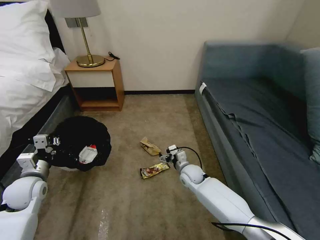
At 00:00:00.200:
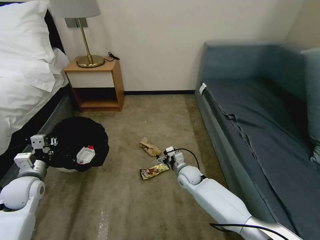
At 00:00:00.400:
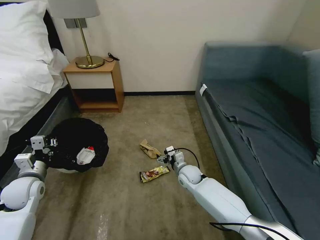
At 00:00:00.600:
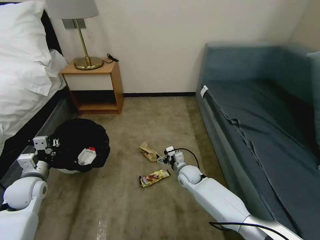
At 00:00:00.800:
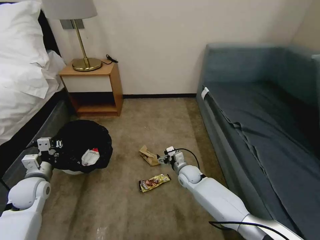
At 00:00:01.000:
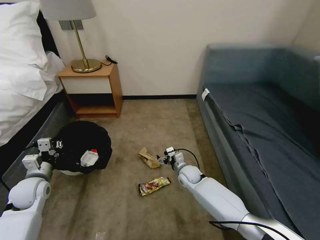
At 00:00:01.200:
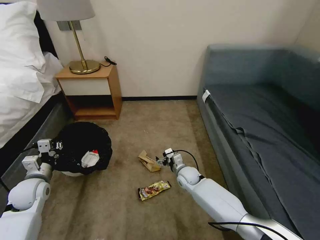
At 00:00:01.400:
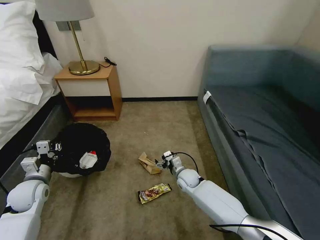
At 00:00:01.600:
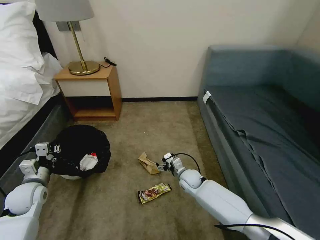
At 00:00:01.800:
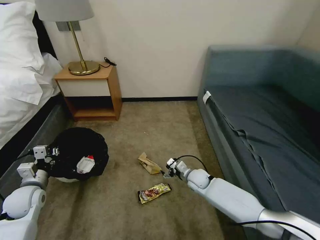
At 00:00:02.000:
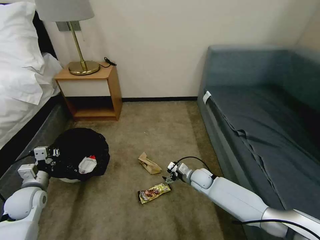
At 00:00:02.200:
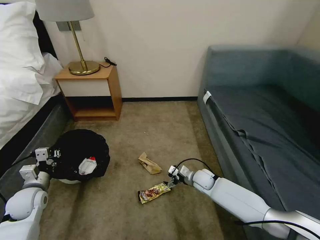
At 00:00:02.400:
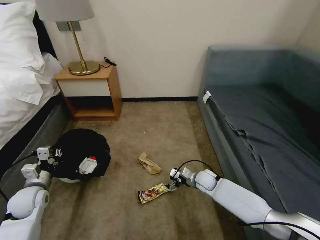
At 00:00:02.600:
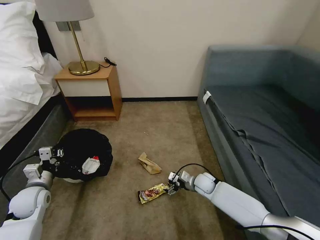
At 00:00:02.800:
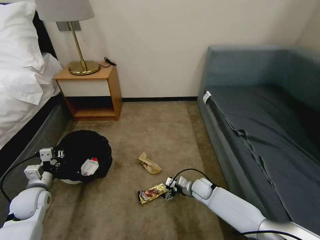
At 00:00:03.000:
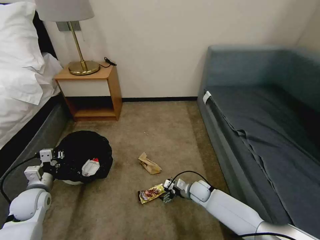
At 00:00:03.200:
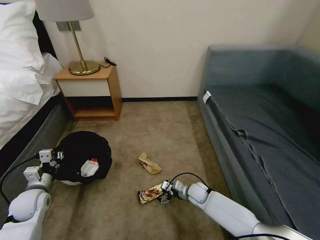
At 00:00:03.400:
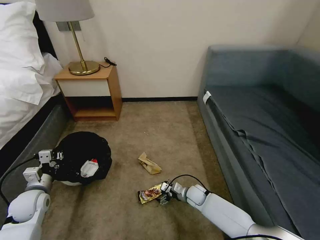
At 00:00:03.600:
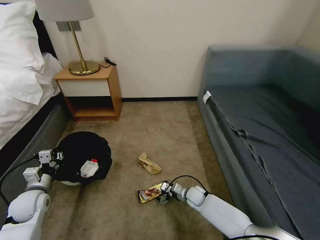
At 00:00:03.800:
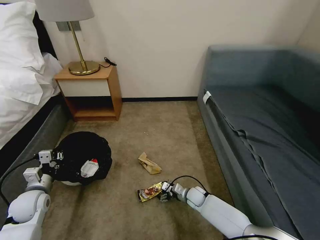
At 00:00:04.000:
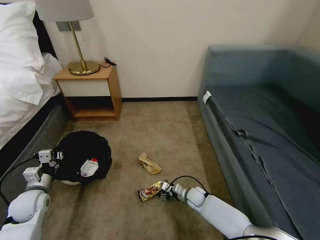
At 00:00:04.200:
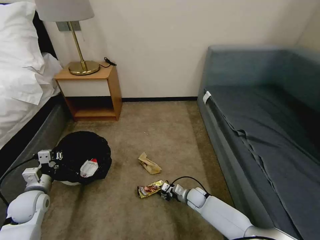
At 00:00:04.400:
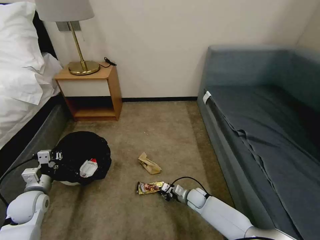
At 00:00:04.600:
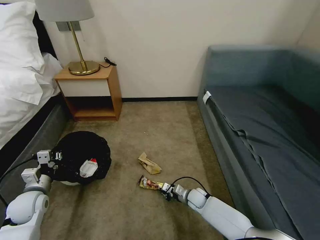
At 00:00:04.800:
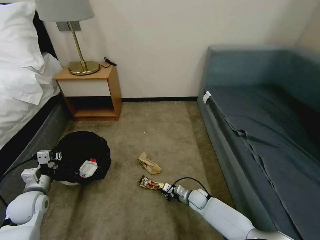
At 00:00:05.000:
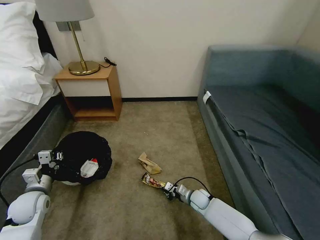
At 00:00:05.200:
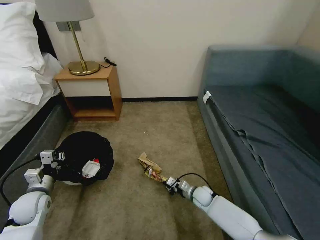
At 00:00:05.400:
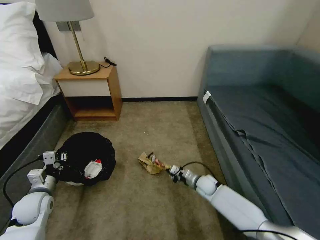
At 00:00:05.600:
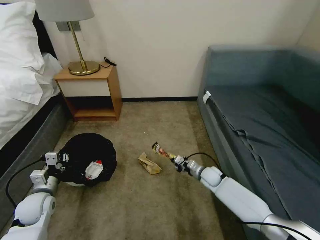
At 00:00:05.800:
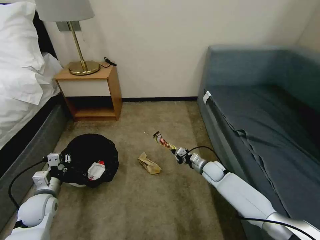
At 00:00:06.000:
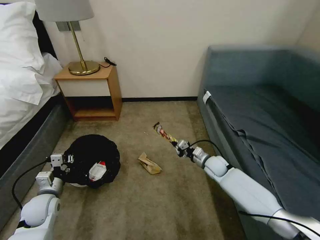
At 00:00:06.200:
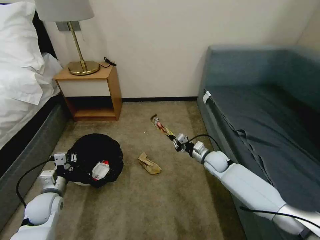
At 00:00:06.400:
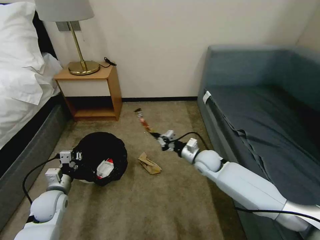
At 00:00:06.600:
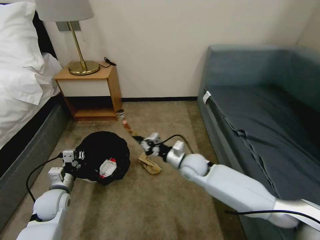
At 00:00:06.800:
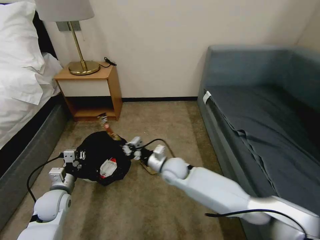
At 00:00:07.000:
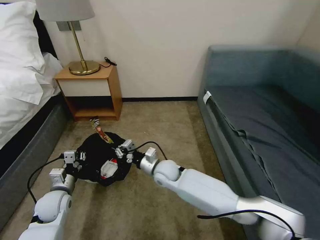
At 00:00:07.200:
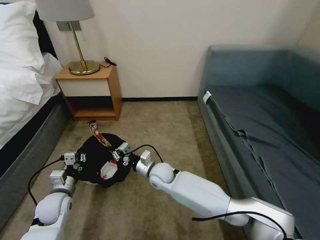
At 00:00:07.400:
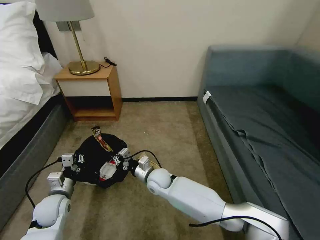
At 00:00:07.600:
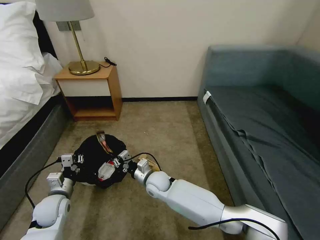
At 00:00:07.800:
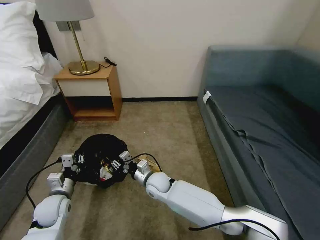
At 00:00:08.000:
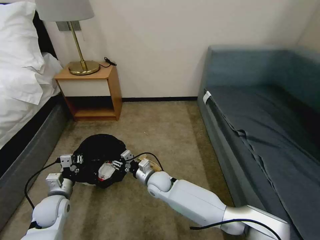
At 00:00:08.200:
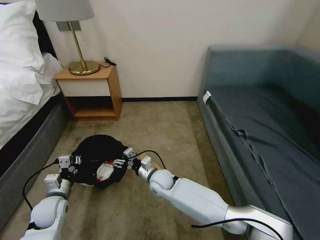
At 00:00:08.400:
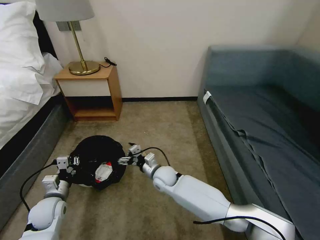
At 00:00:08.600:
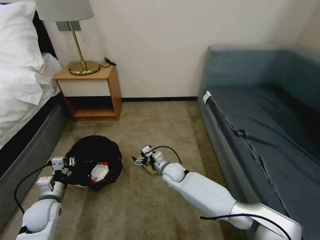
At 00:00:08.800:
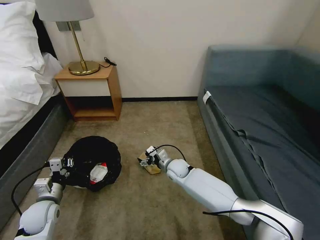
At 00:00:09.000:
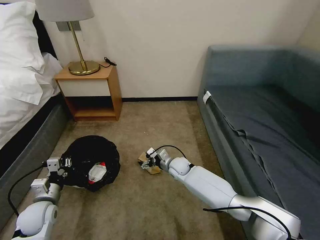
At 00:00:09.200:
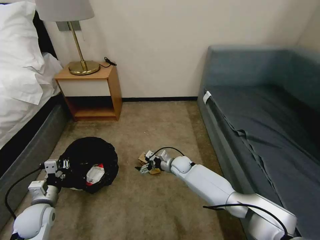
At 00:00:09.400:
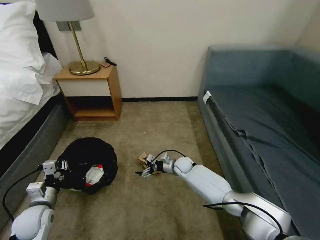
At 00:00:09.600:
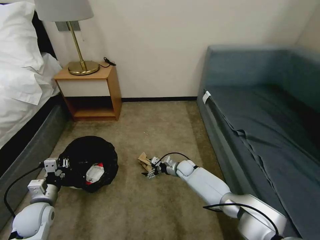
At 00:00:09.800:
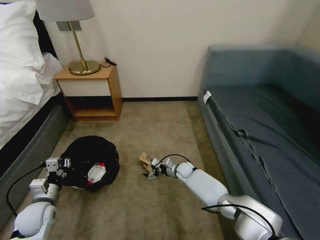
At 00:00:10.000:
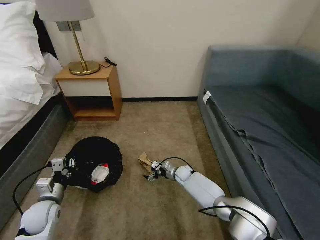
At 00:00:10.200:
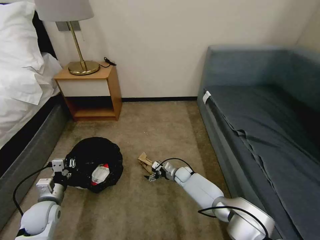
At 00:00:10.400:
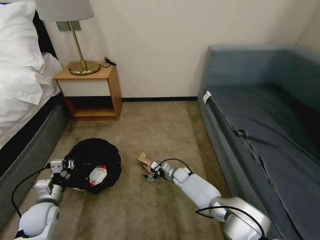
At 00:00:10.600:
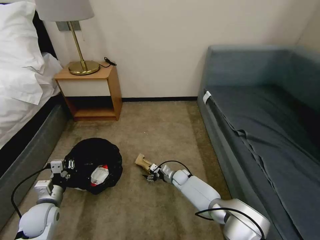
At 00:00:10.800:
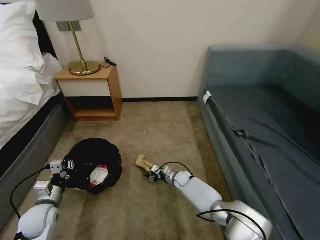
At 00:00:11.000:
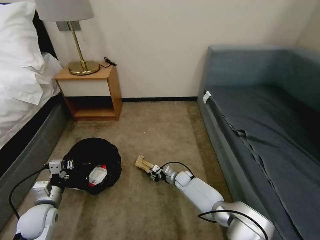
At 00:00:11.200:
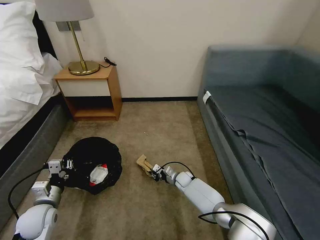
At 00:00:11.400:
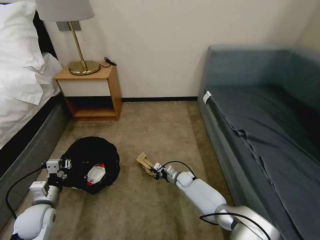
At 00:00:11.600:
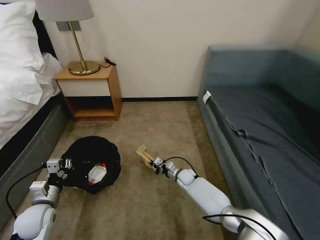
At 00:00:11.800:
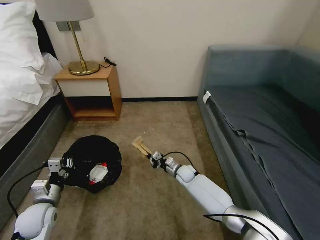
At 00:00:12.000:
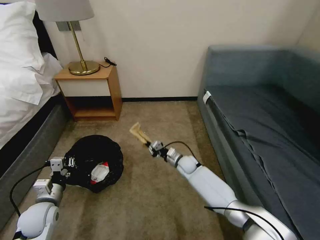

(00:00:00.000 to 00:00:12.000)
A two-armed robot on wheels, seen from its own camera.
Task of the whole recording: Pick up the trash bin, then pick up the garbage on the floor and place it into the trash bin.
00:00:01.600 - 00:00:03.000: The right gripper moves to the right, roughly 5 cm.
00:00:03.000 - 00:00:04.400: The right gripper changes place by some 5 cm, and closes its fingers.
00:00:04.400 - 00:00:06.000: The right gripper shifts some 20 cm upward, forward and to the right.
00:00:06.000 - 00:00:07.600: The right gripper shifts approximately 25 cm to the left.
00:00:07.600 - 00:00:09.000: The right gripper shifts roughly 15 cm to the right and forward, and opens its fingers.
00:00:09.000 - 00:00:10.400: The right gripper is displaced downward by approximately 10 cm.
00:00:10.400 - 00:00:12.000: The right gripper travels upward by some 10 cm, and closes up.

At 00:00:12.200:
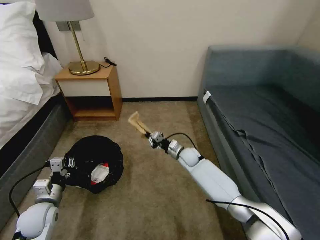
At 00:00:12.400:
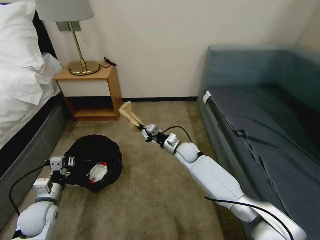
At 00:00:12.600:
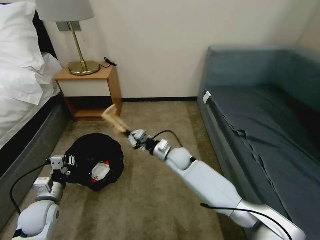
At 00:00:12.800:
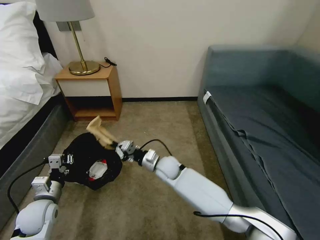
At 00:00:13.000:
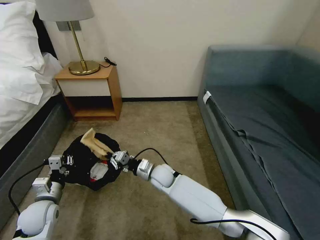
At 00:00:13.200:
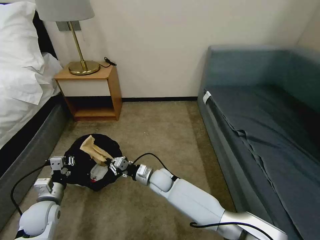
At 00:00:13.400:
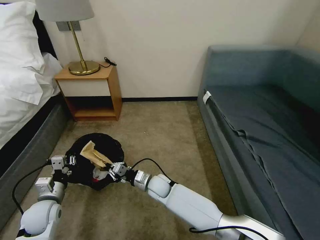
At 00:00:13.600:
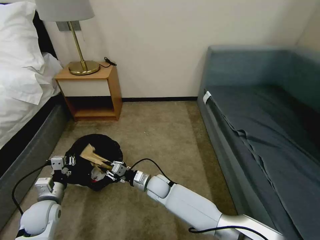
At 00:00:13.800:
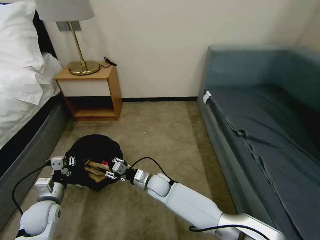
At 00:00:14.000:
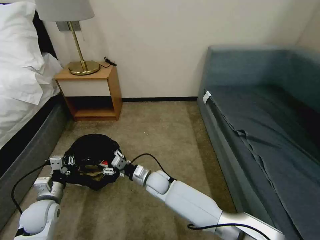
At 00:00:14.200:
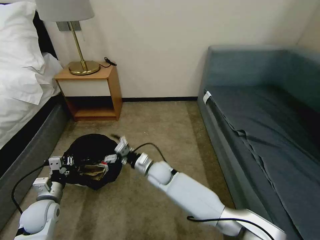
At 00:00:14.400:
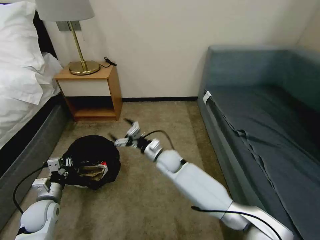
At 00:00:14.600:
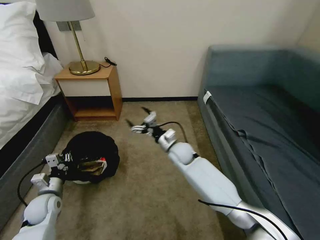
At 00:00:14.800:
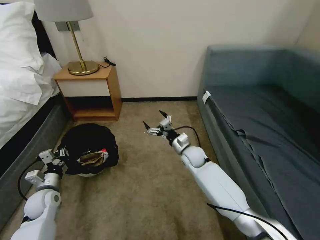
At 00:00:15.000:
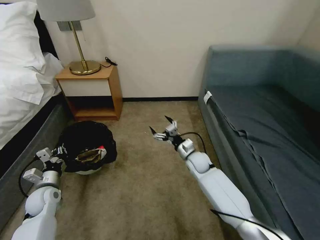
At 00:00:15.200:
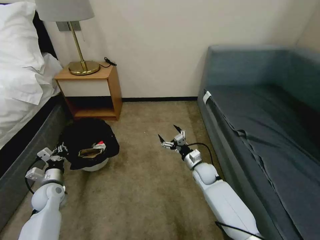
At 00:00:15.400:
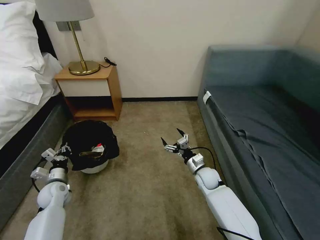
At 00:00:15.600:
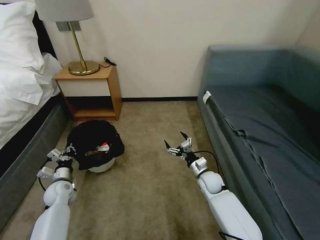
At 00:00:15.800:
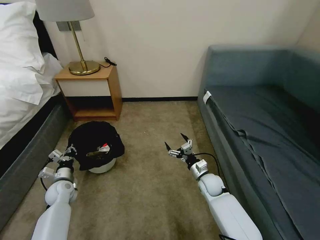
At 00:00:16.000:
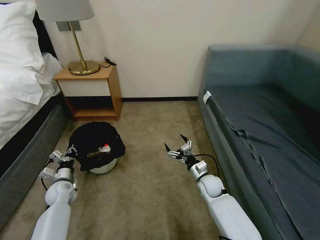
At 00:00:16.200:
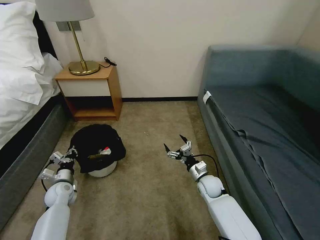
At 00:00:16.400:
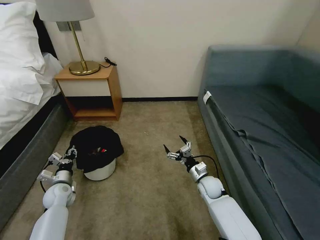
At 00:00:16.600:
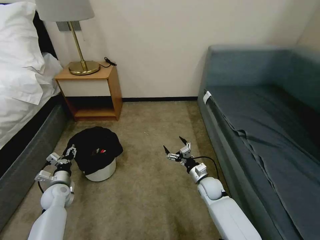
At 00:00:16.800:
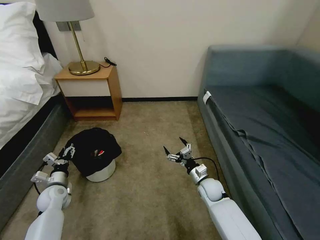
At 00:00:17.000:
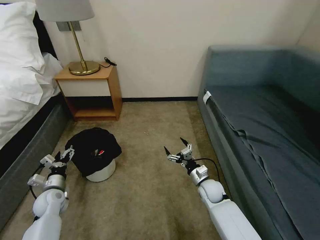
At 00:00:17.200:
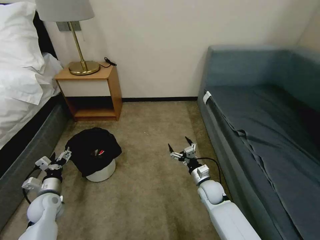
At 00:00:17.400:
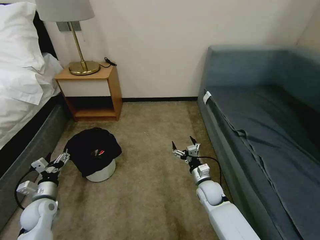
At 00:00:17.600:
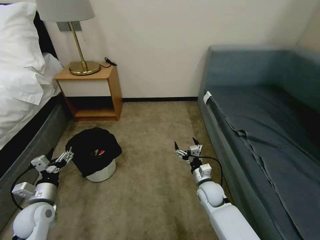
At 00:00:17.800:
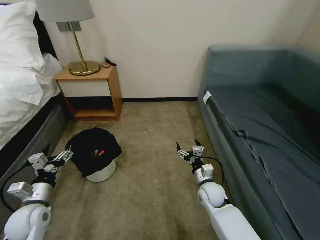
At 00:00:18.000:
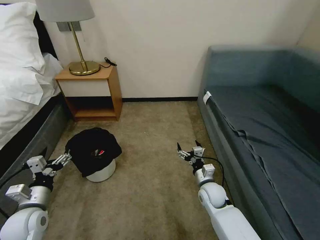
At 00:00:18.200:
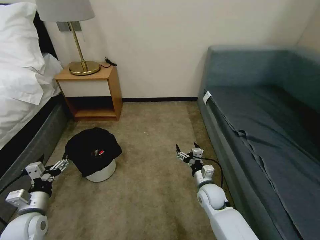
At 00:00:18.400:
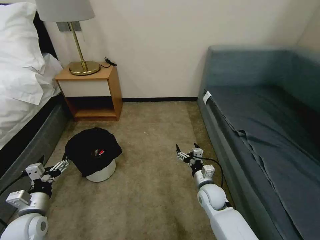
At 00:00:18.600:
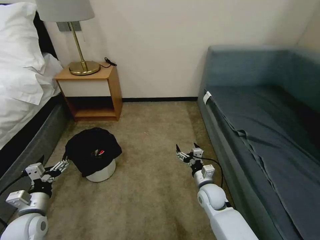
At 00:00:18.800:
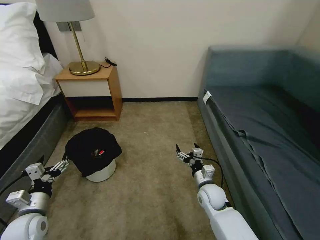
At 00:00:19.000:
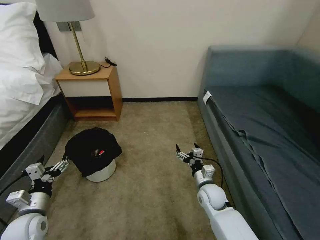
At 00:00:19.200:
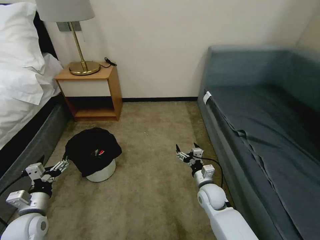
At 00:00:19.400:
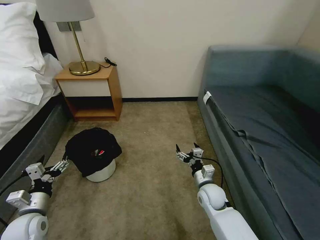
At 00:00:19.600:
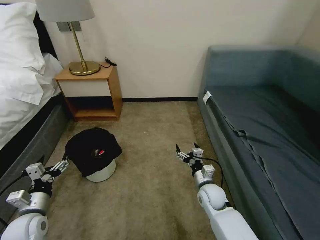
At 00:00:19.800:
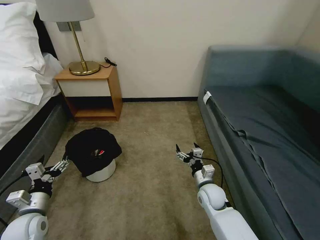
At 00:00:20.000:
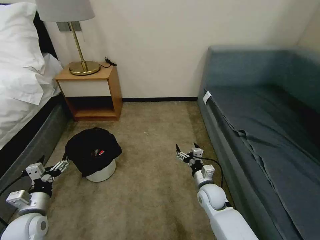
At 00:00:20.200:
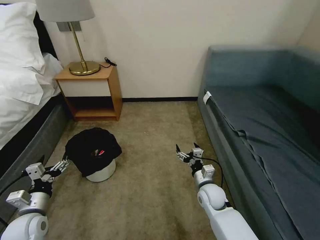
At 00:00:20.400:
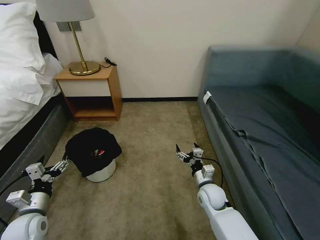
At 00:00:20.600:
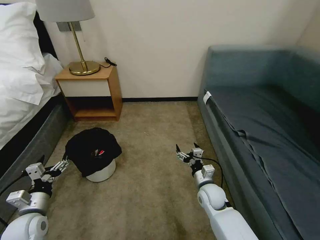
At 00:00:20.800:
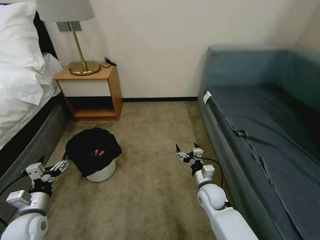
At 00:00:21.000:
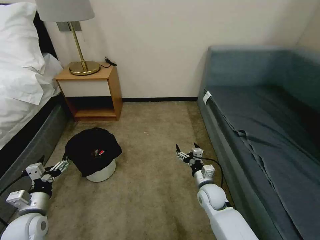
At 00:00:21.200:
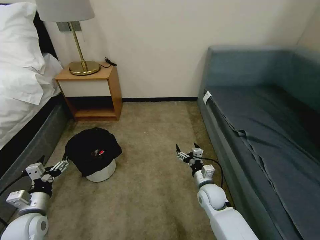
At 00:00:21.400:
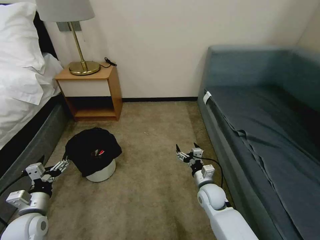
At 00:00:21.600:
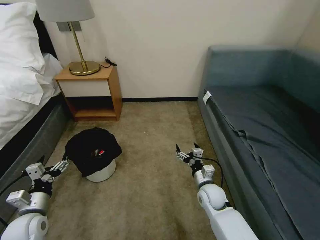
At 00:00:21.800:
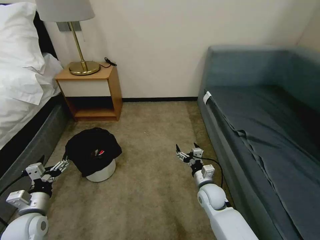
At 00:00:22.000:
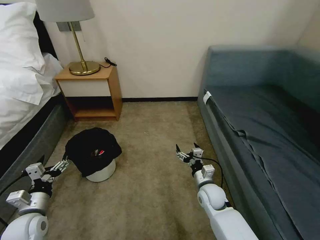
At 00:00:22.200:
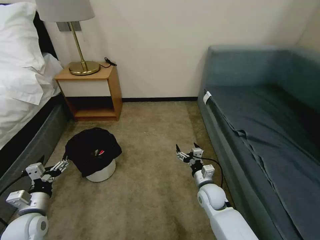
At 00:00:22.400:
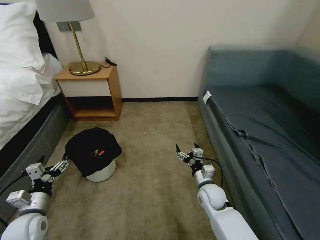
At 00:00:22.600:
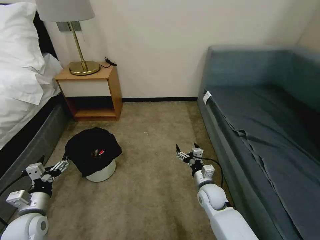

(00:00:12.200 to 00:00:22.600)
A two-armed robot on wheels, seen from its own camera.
Task of the whole recording: Pick up the trash bin, then pick up the garbage on the floor and place it into the trash bin.
00:00:12.200 - 00:00:13.600: The right gripper travels to the left and backward by about 20 cm.
00:00:13.600 - 00:00:15.200: The left gripper is displaced forward by some 5 cm. The right gripper shifts some 20 cm to the right, and opens up.
00:00:15.200 - 00:00:16.600: The right gripper shifts some 5 cm backward. Meanwhile the left gripper opens.
00:00:16.600 - 00:00:18.200: The right gripper moves some 5 cm. The left gripper heads backward and upward, covering approximately 15 cm, and opens.
00:00:18.200 - 00:00:22.600: Both grippers stay about where they are.
